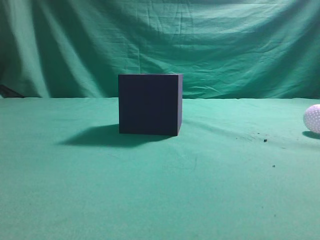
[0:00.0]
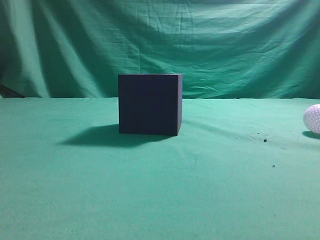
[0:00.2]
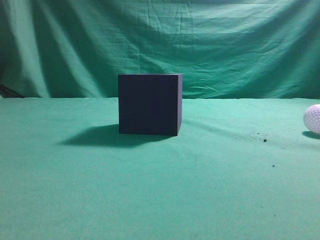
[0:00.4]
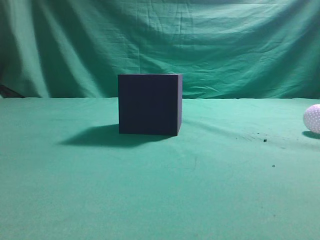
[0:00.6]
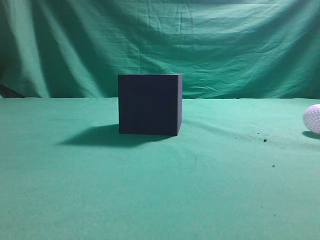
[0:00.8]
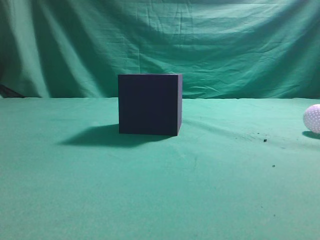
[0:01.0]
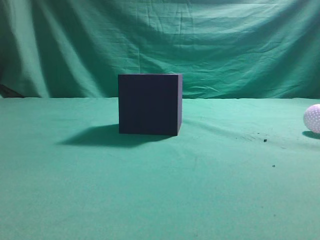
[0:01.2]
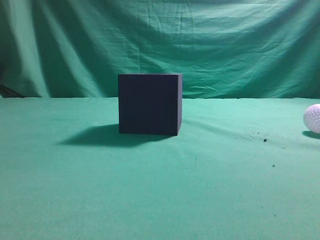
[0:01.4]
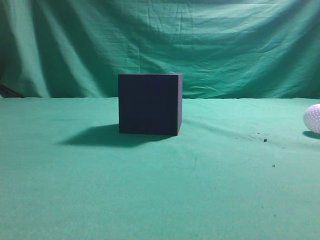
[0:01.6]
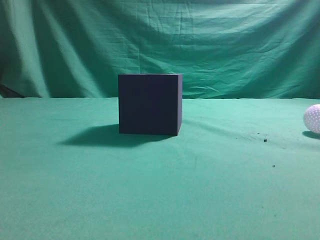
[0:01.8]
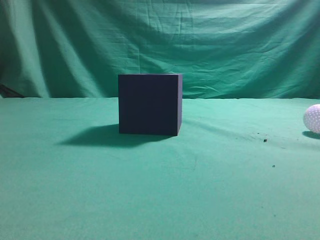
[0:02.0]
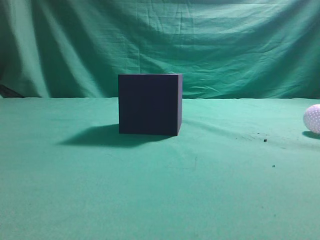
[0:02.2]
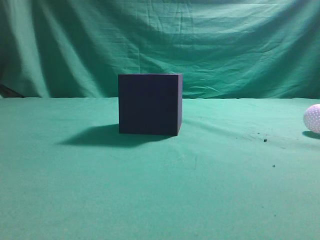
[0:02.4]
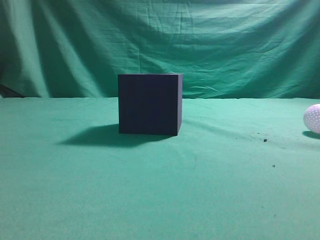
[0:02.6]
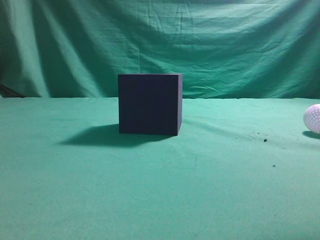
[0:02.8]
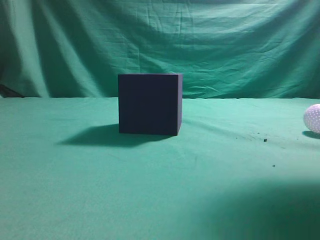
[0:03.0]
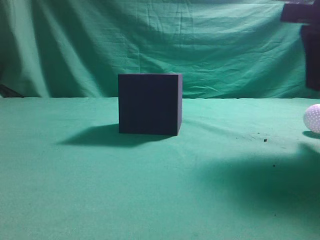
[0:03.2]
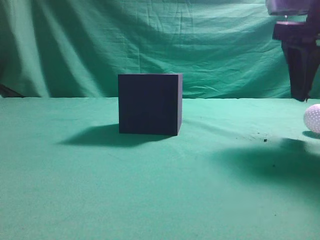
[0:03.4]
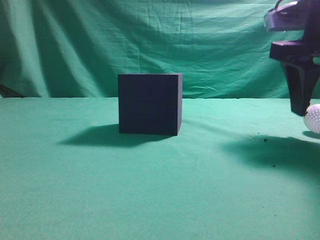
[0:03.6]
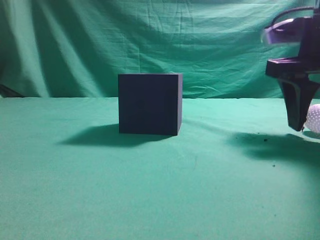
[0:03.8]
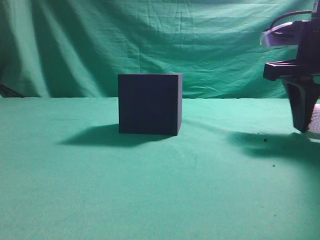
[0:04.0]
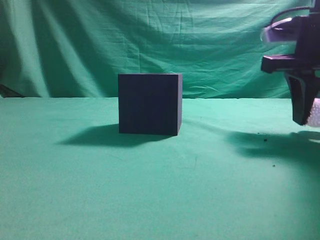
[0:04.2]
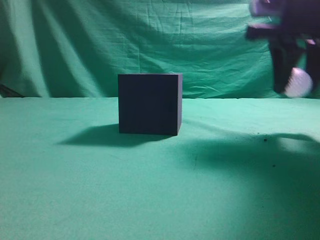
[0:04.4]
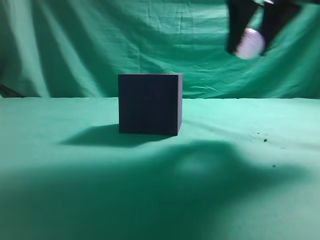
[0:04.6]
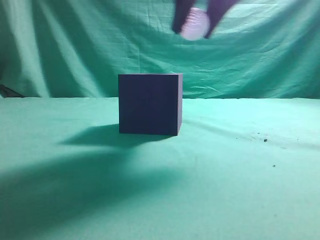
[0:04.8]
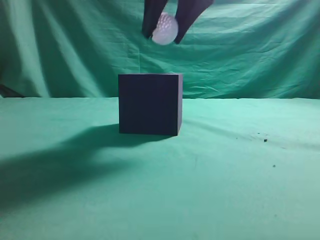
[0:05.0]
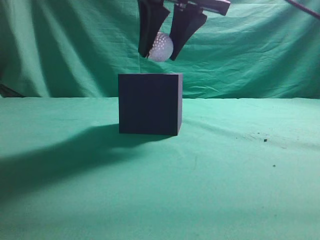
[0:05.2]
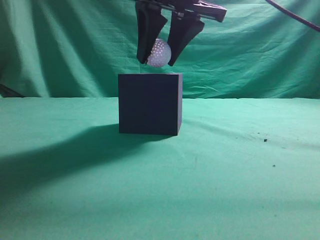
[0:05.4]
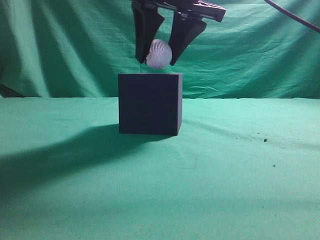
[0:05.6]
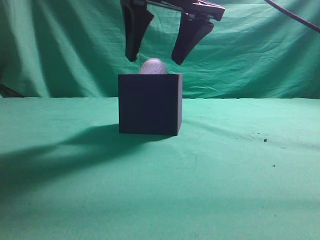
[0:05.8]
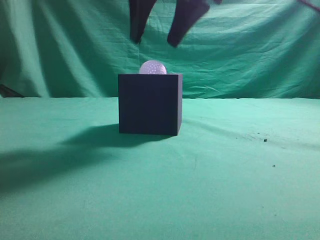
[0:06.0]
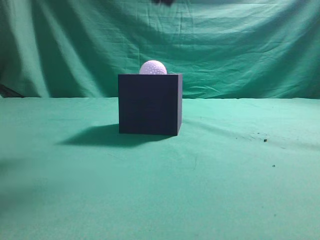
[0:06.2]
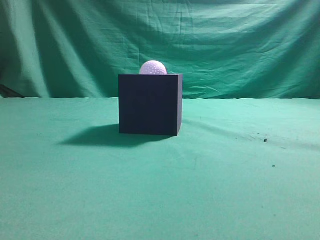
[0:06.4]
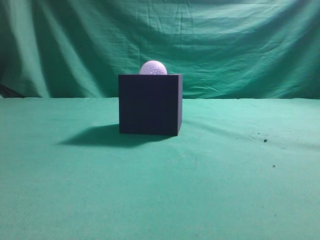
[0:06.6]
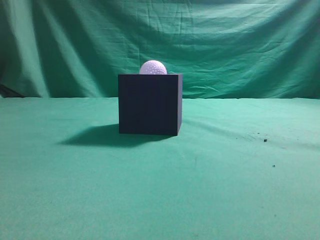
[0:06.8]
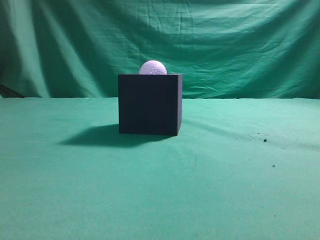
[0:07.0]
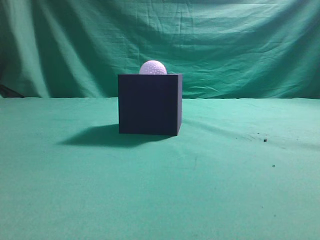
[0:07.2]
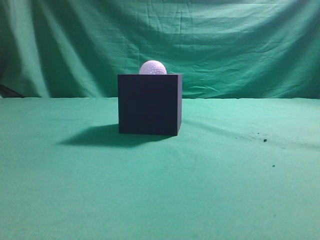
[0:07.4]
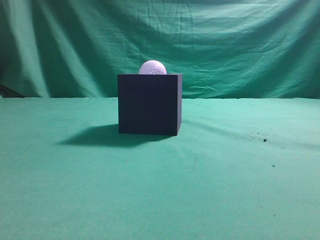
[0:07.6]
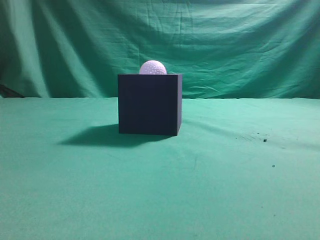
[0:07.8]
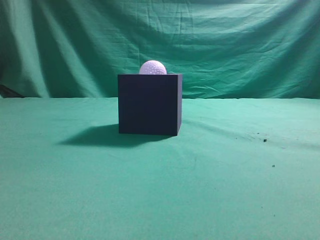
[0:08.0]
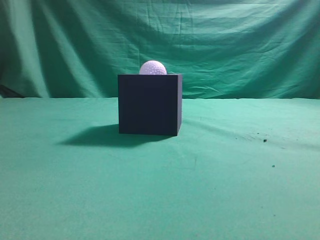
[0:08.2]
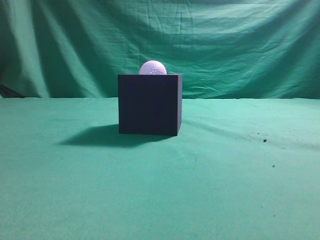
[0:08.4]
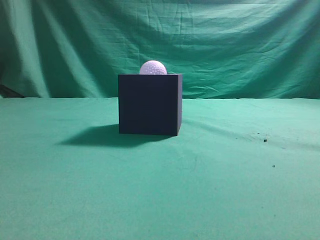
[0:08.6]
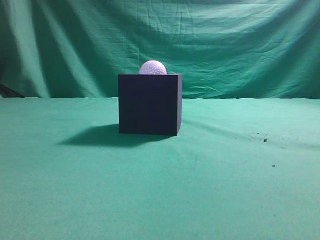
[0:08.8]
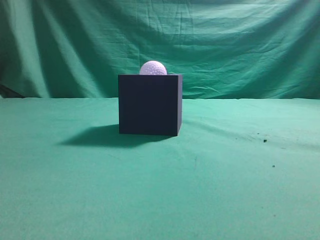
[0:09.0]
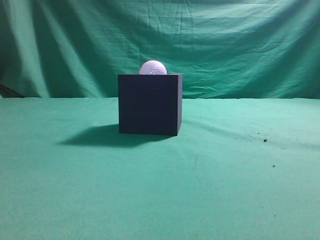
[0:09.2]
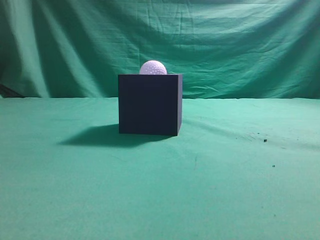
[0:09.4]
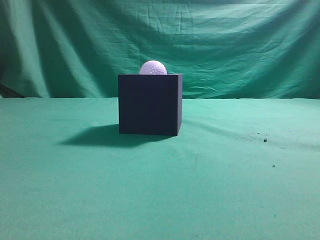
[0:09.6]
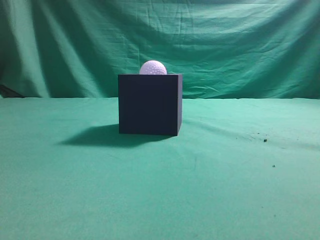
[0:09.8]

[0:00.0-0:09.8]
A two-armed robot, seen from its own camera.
Task of the whole recording: Pick up the ball and place it in the circular groove above the cube.
Step, 0:00.0 to 0:03.6: Grasp the sphere on the table.
Step, 0:03.8 to 0:04.8: Place the sphere into the sphere-shaped recess.
0:02.8 to 0:04.2: The right gripper moves forward and downward, about 15 cm, and opens.
0:04.2 to 0:05.6: The right gripper shifts roughly 20 cm to the left and upward.
0:05.6 to 0:07.0: The right gripper heads backward, to the right and upward, covering roughly 25 cm, and closes.

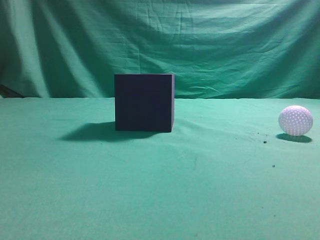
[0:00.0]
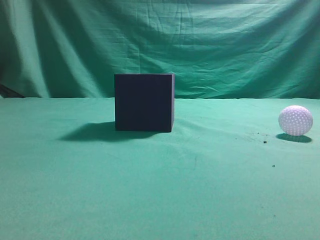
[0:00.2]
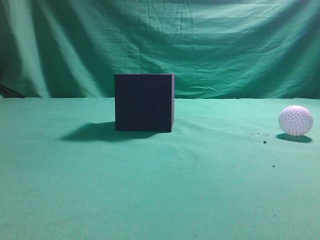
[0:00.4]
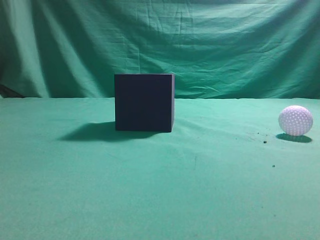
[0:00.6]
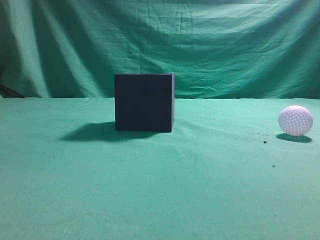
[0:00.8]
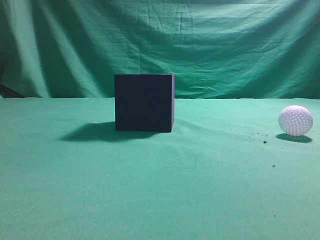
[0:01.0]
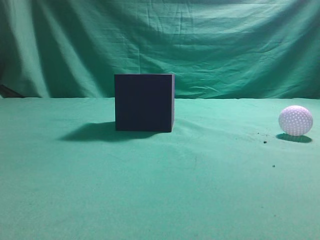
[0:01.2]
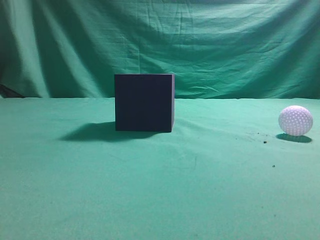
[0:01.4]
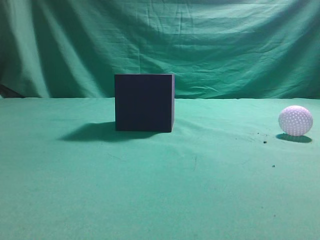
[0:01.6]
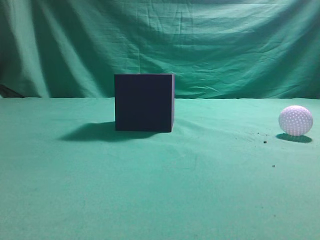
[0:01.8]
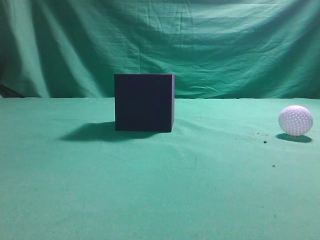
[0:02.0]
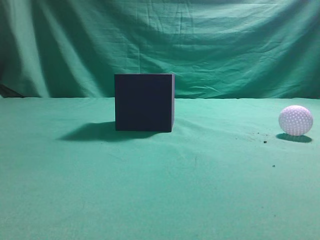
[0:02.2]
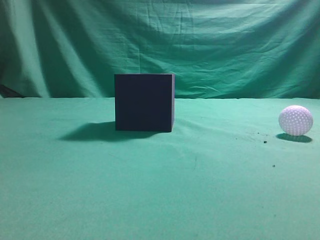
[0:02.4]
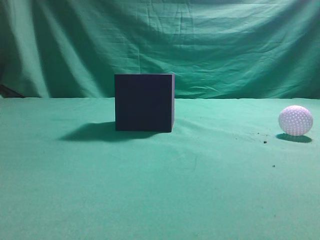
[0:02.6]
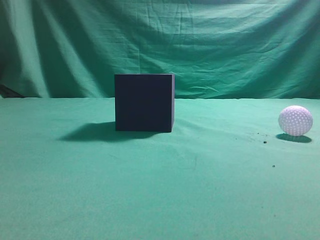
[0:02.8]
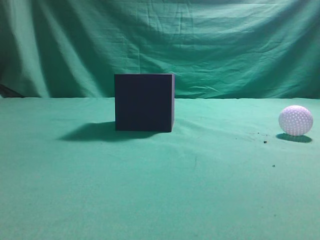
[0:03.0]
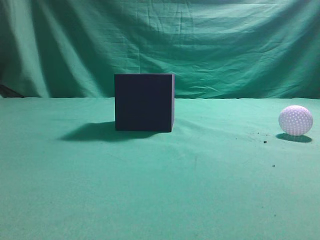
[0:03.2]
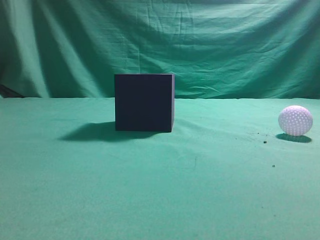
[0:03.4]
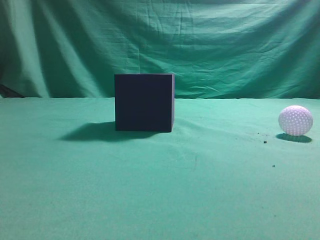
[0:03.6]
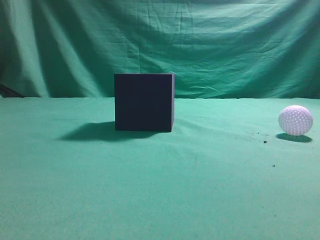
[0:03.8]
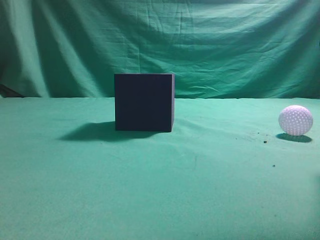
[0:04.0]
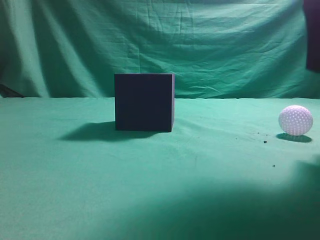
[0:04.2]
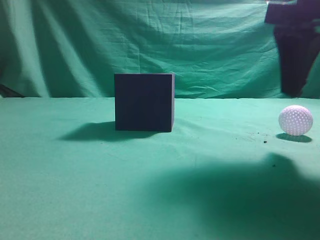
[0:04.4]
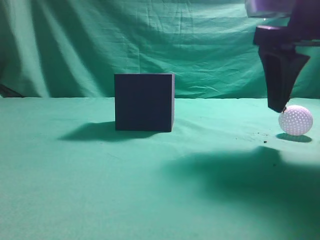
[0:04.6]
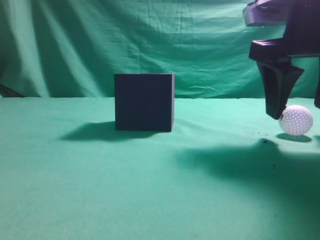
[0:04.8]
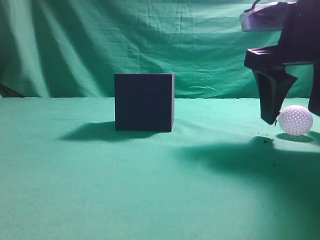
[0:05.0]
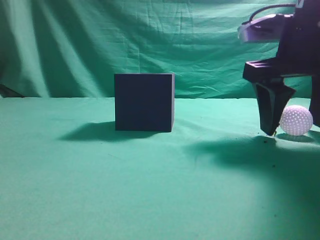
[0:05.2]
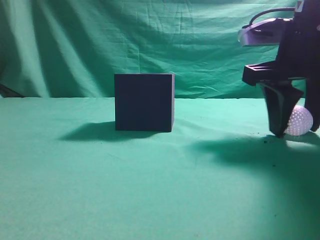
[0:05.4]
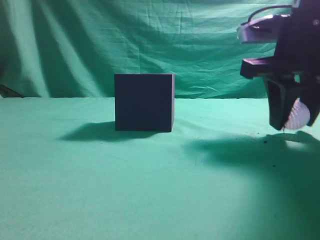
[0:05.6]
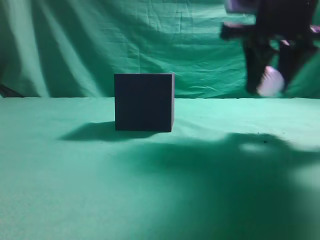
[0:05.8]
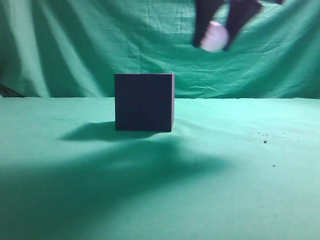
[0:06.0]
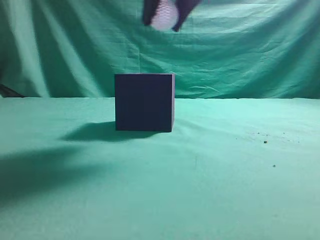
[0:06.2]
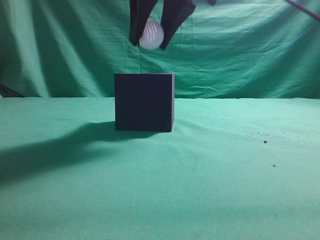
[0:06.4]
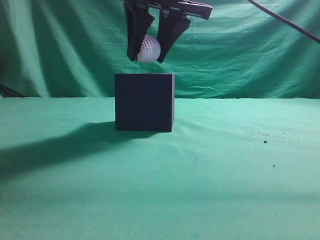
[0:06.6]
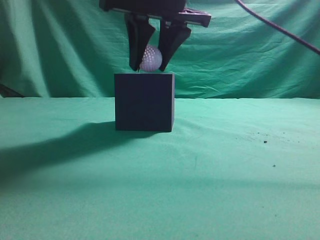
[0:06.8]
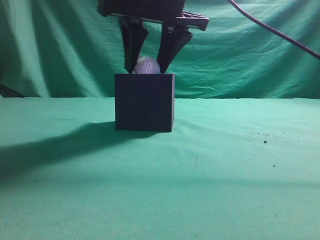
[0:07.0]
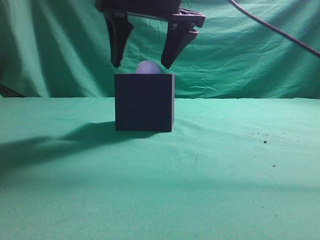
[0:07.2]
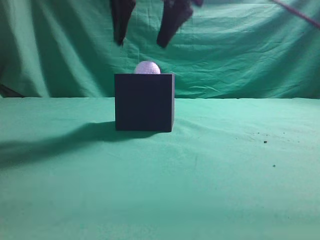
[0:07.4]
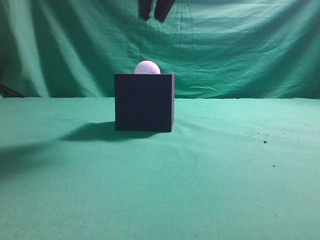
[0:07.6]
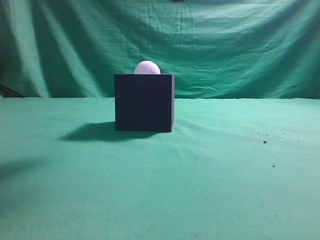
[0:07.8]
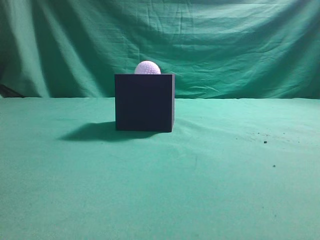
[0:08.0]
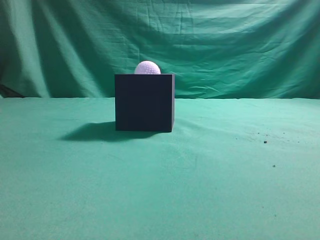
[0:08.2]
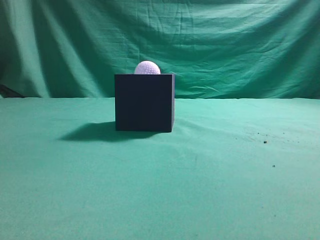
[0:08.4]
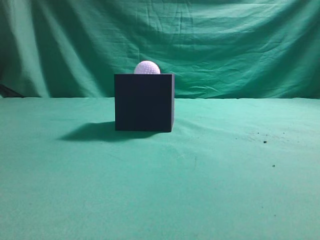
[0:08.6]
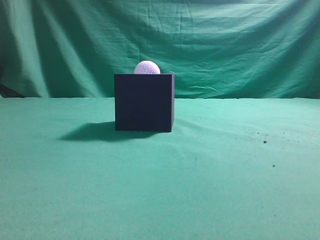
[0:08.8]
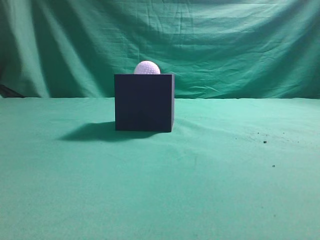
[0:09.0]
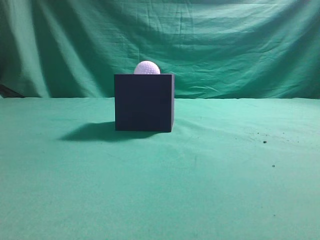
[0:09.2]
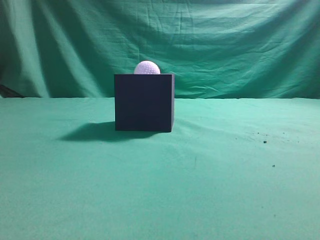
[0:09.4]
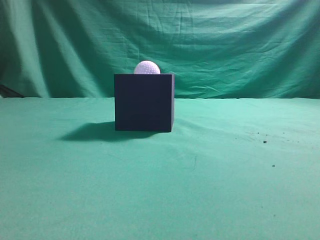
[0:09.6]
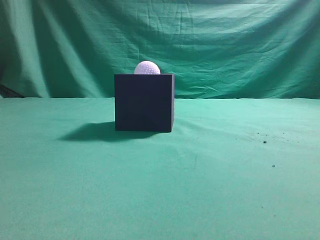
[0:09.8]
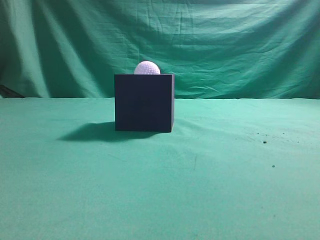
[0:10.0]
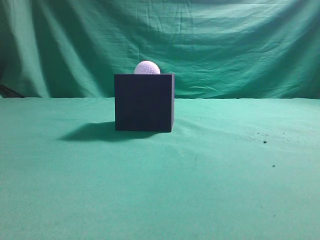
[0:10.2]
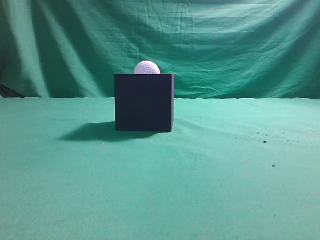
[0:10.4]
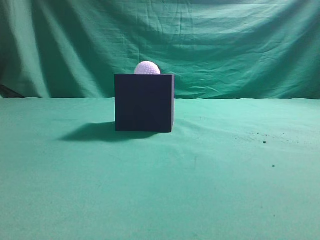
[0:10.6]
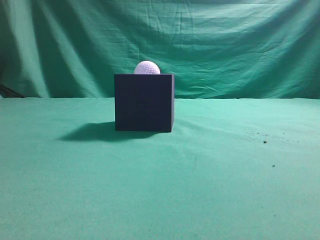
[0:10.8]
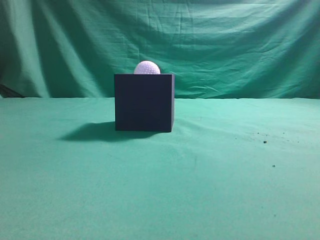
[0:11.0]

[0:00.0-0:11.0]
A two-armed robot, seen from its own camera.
Task of the whole recording: Pick up the ball and place it in the circular groove above the cube.
Step, 0:00.0 to 0:05.6: Grasp the sphere on the table.
Step, 0:05.8 to 0:07.4: Place the sphere into the sphere-shaped recess.
0:03.2 to 0:04.8: The right gripper travels forward, to the left and downward by roughly 20 cm, and opens its fingers.
0:04.8 to 0:06.2: The right gripper moves to the left and upward, some 15 cm, and closes.
0:06.2 to 0:07.8: The right gripper closes its fingers.

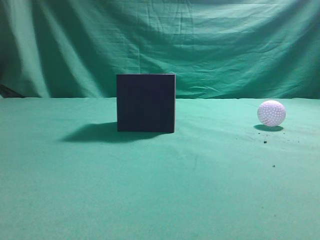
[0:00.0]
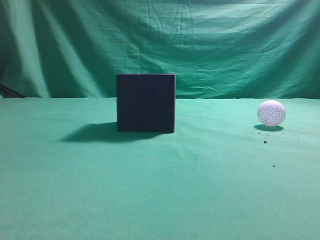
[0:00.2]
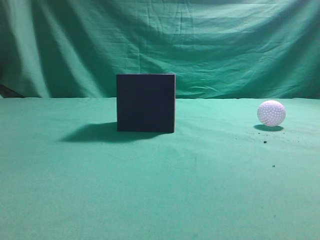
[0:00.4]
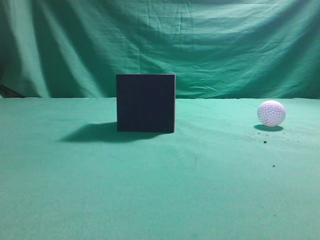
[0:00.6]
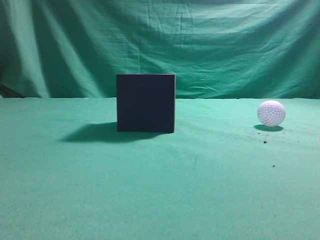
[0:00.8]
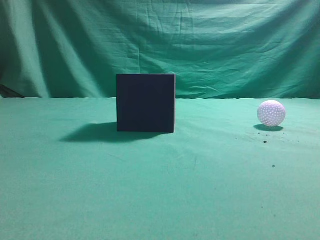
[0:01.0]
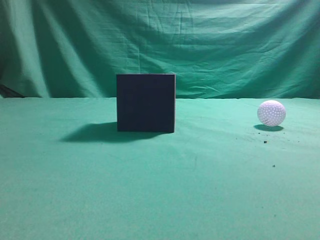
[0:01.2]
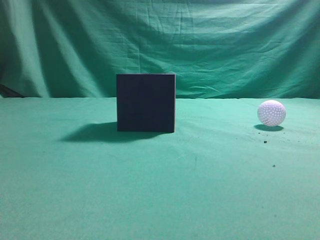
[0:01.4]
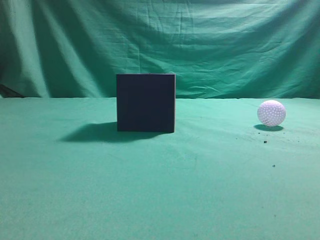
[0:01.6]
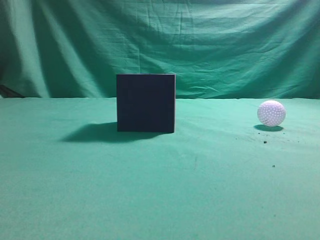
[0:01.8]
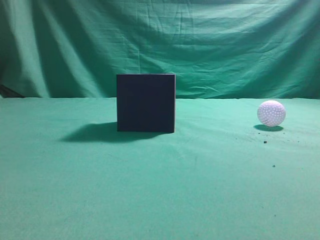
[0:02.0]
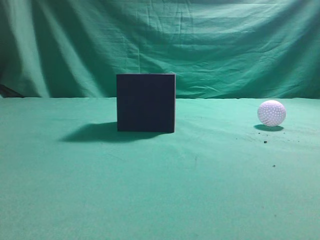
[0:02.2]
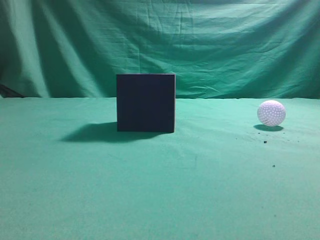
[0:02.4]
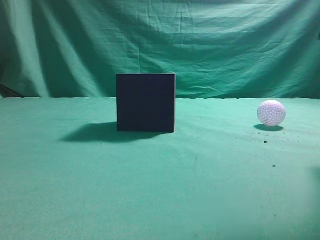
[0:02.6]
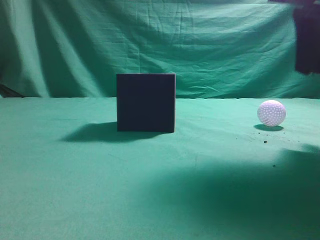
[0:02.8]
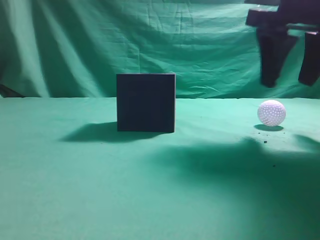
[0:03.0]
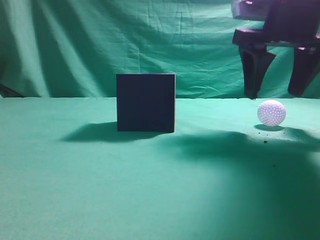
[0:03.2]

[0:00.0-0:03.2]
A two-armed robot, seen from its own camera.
Task of the whole recording: Pick up the ball and place it in the circular groove above the cube.
0:01.6 to 0:03.2: The right gripper heads forward, covering roughly 30 cm, and opens its fingers.
